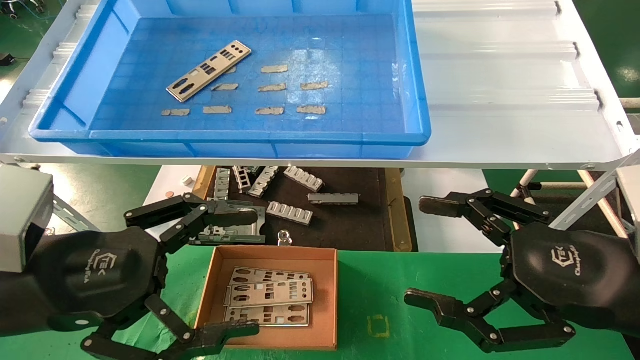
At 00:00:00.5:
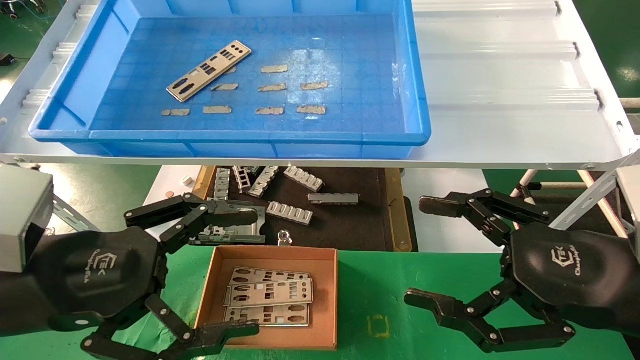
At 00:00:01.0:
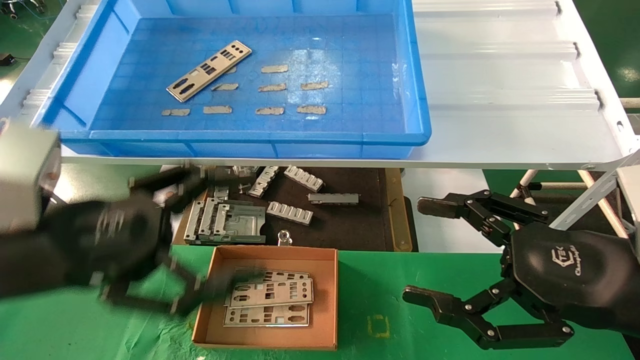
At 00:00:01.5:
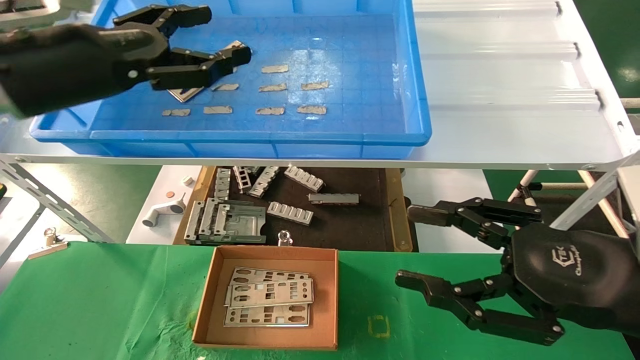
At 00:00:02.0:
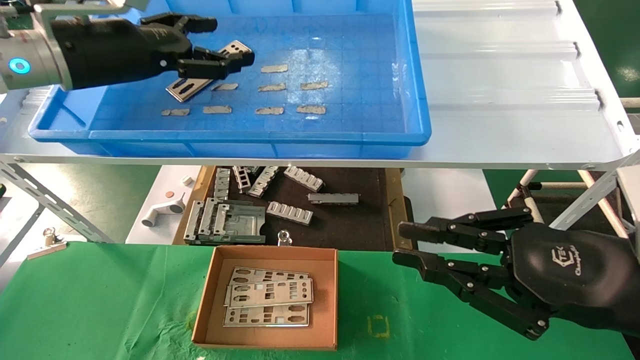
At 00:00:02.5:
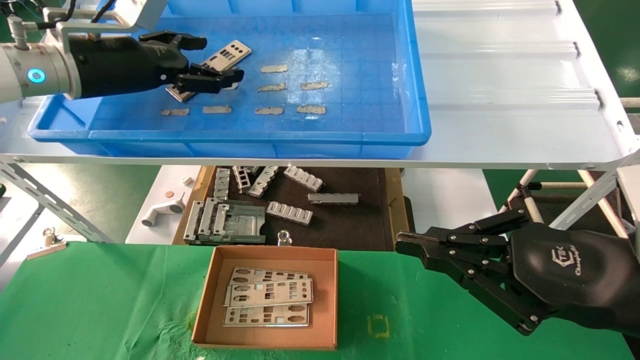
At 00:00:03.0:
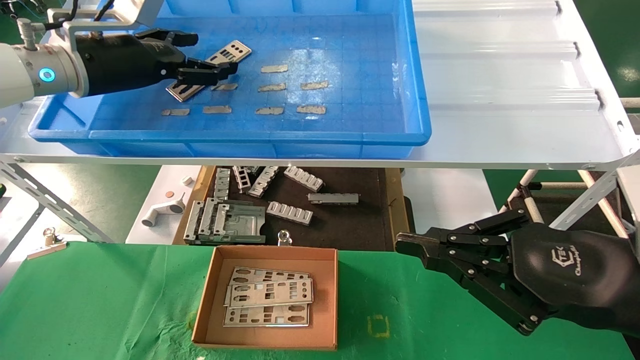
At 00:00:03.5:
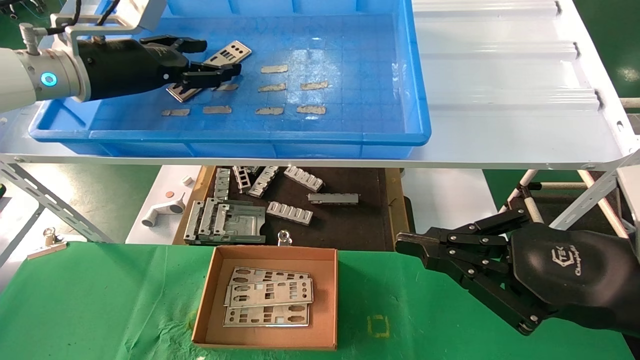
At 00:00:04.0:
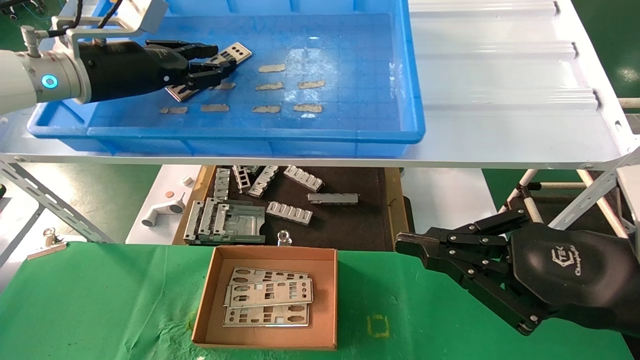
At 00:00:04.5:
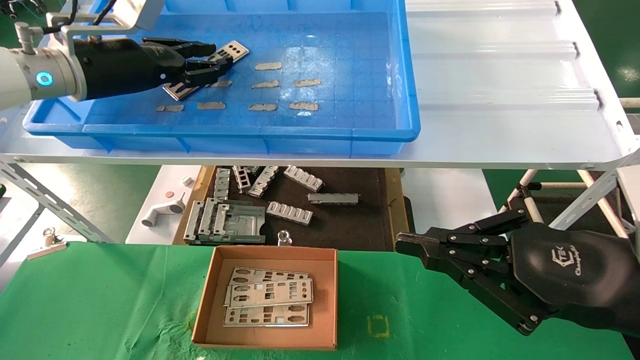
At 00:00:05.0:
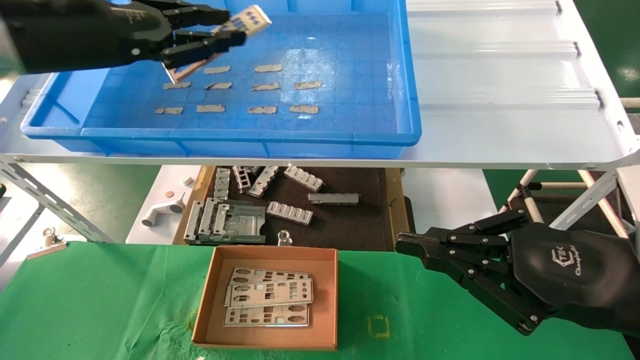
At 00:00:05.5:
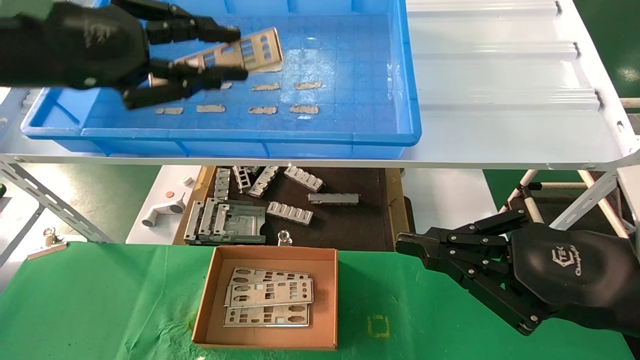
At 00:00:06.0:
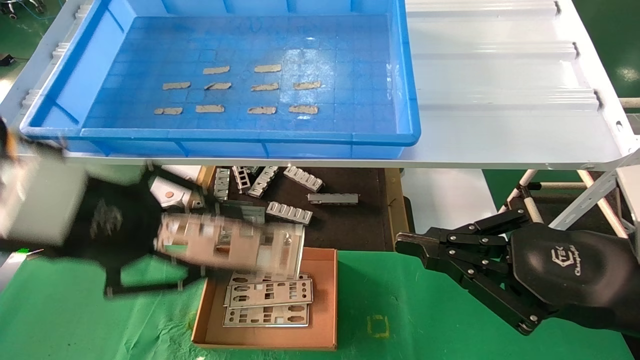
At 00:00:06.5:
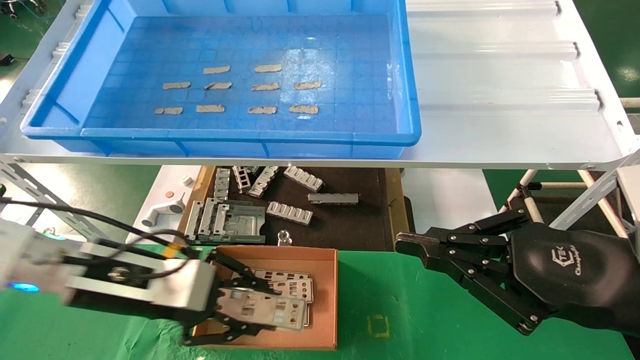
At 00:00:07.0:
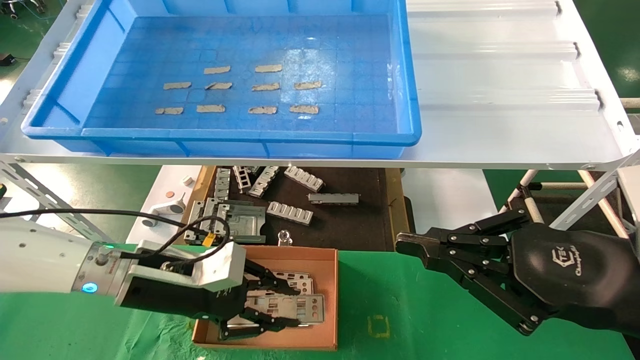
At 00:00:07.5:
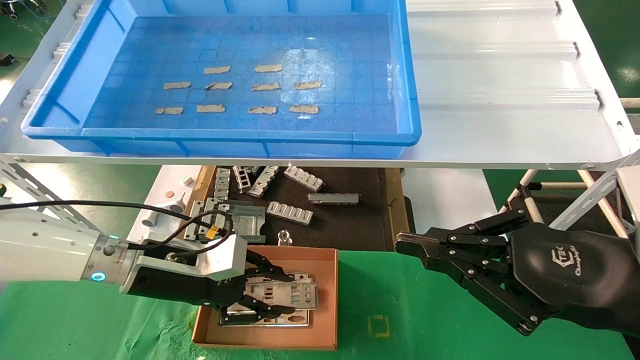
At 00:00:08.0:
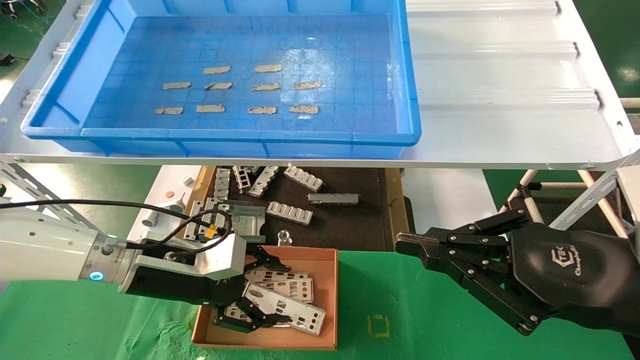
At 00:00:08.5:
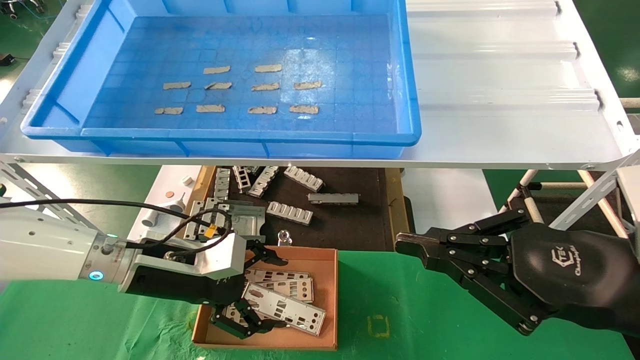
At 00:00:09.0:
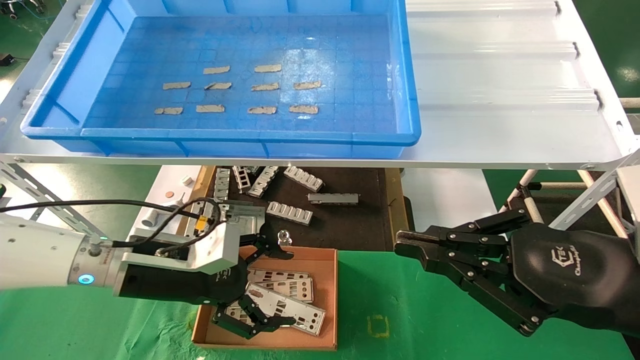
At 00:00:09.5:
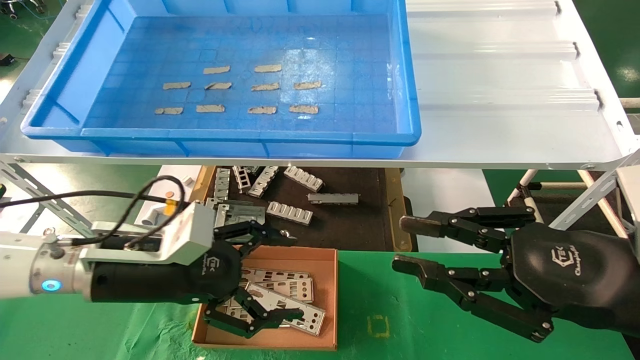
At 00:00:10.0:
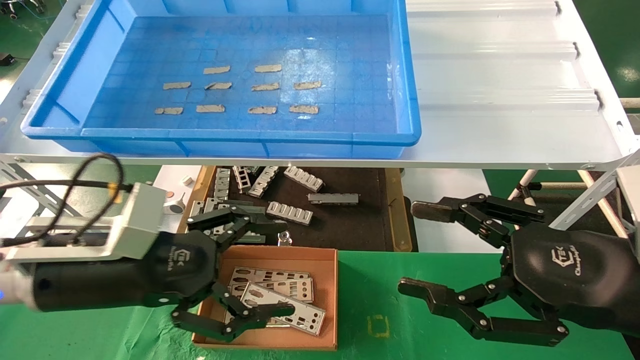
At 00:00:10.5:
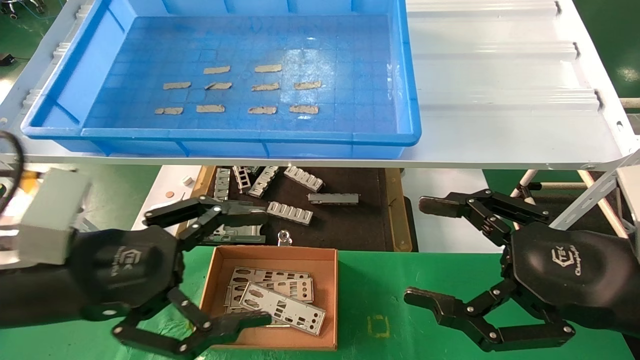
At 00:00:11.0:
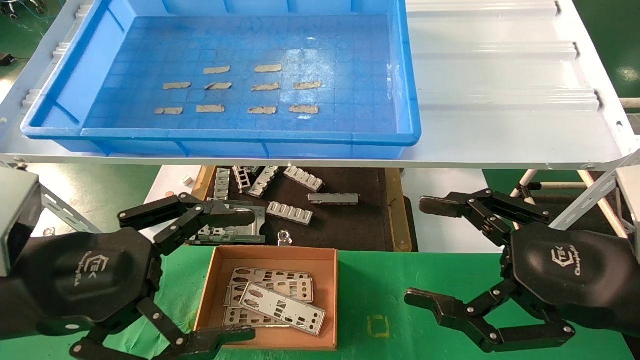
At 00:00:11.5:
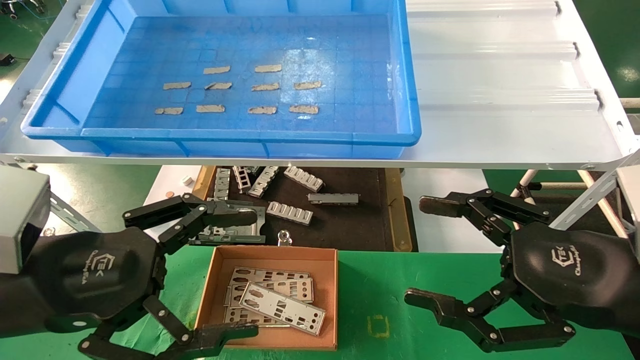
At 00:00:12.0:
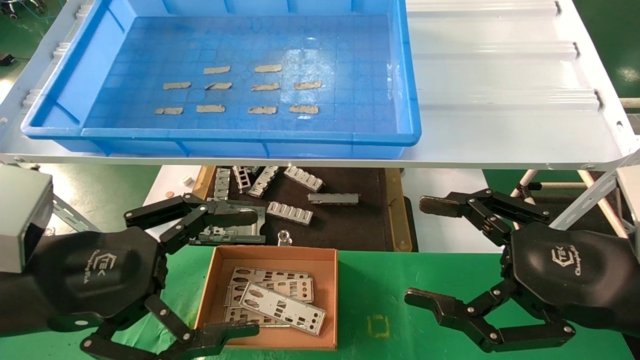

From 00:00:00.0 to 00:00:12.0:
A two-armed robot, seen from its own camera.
Task of the whole recording: pick up the parts on the tray and put them in the cardboard box.
Step, from 00:00:01.5 to 00:00:04.0: Pick up the IO bracket from the container box.
Step, from 00:00:04.5 to 00:00:07.5: Place the IO bracket into the ingredient slot.
From 00:00:00.0 to 00:00:02.0: The right gripper closes up. Meanwhile the left gripper travels forward and upward by approximately 25 cm.
From 00:00:02.0 to 00:00:04.0: The left gripper closes up.
From 00:00:04.0 to 00:00:06.0: The left gripper travels backward by about 20 cm.
From 00:00:06.0 to 00:00:08.0: The left gripper shifts roughly 20 cm downward and forward, and opens.
From 00:00:08.0 to 00:00:10.0: The right gripper opens its fingers, while the left gripper is displaced backward and upward by approximately 10 cm, and opens up.
From 00:00:10.0 to 00:00:12.0: The right gripper opens up; the left gripper moves backward, some 5 cm.

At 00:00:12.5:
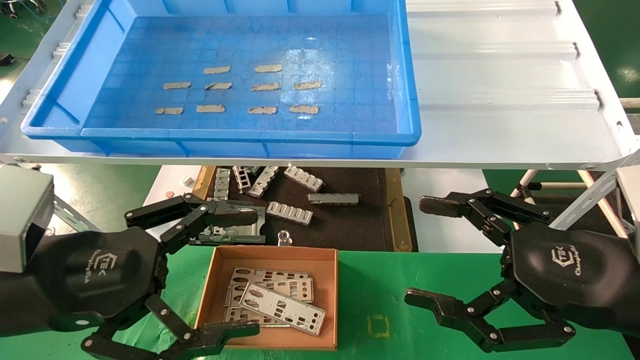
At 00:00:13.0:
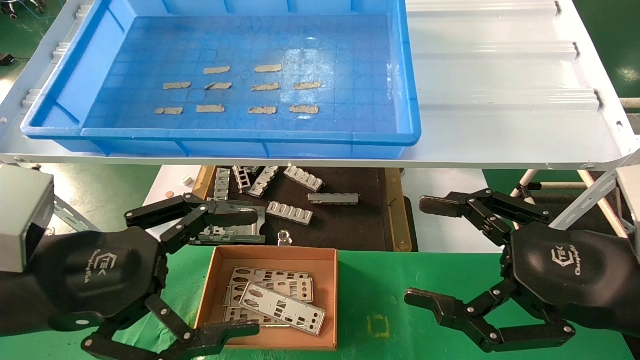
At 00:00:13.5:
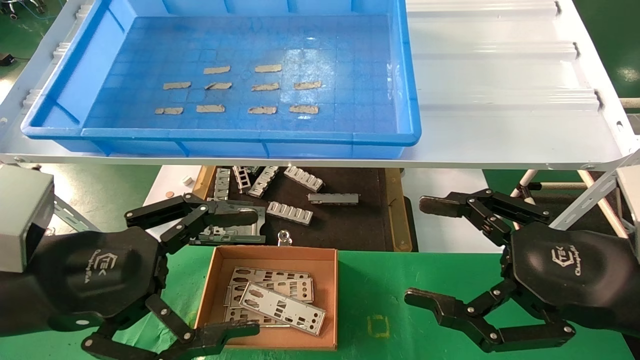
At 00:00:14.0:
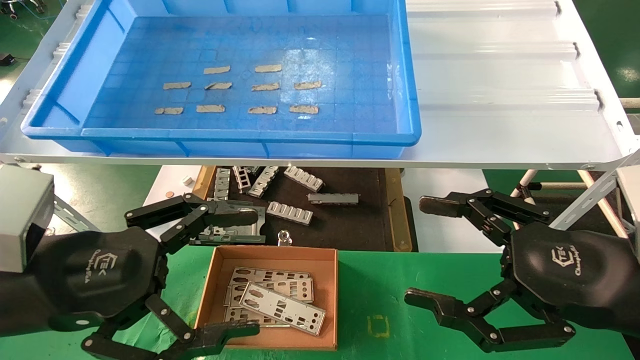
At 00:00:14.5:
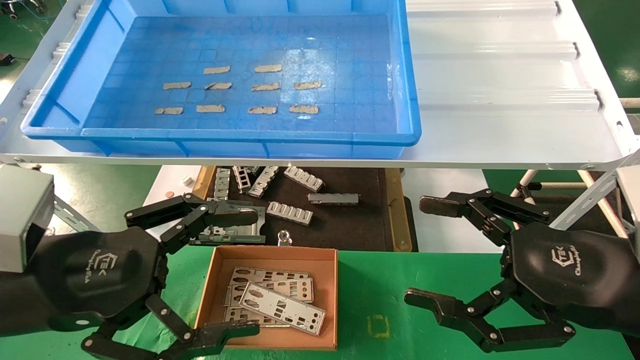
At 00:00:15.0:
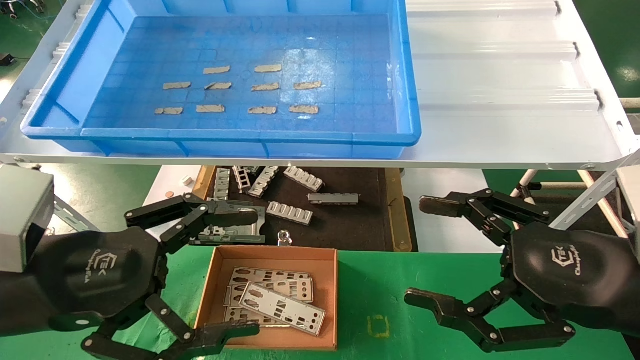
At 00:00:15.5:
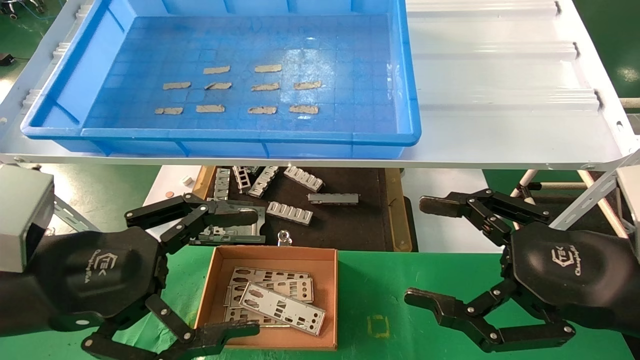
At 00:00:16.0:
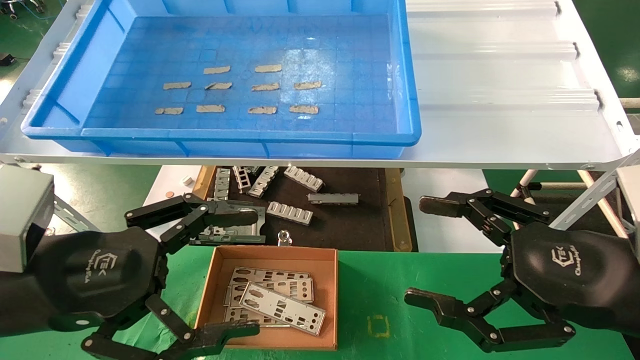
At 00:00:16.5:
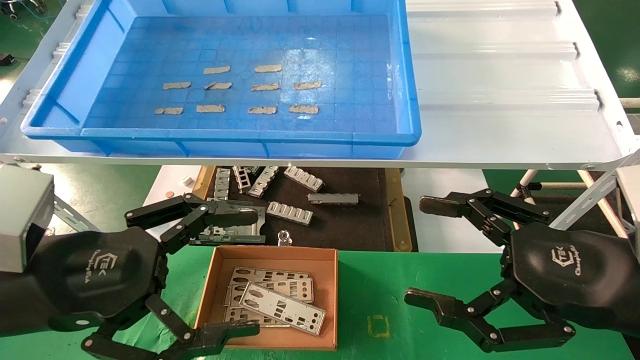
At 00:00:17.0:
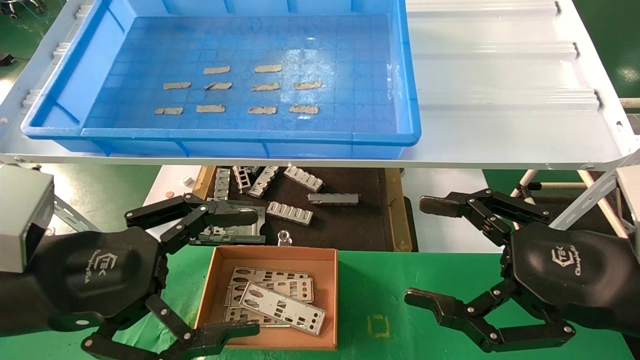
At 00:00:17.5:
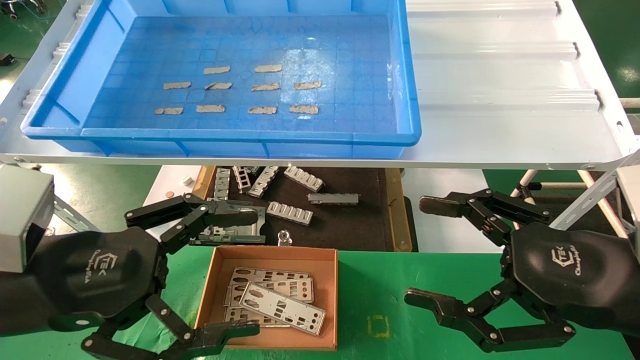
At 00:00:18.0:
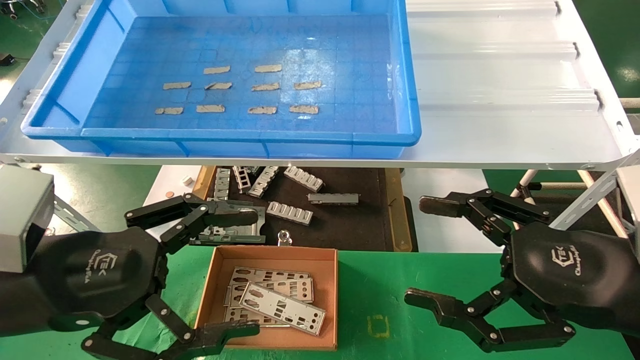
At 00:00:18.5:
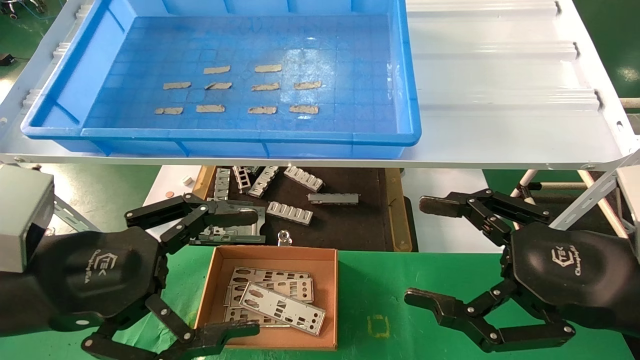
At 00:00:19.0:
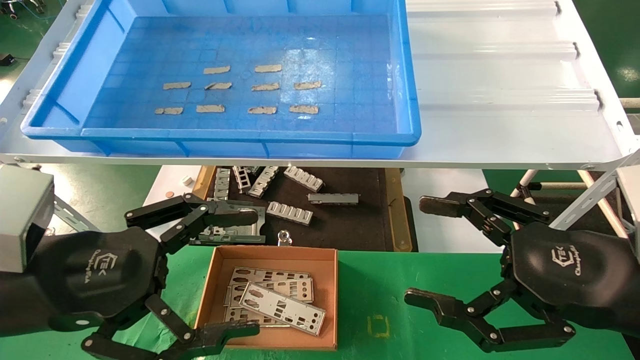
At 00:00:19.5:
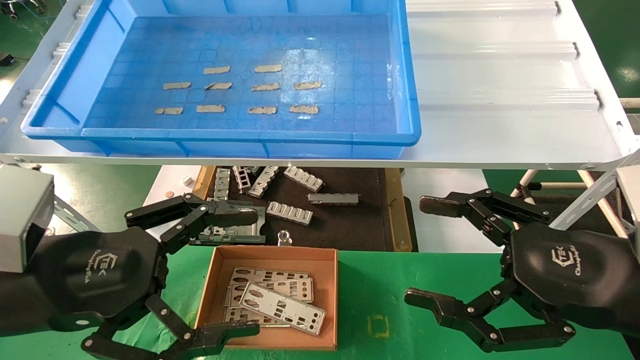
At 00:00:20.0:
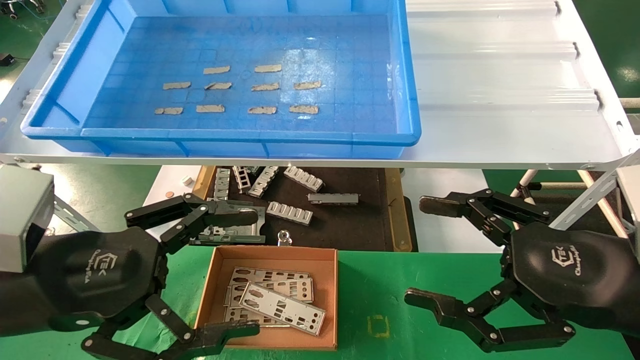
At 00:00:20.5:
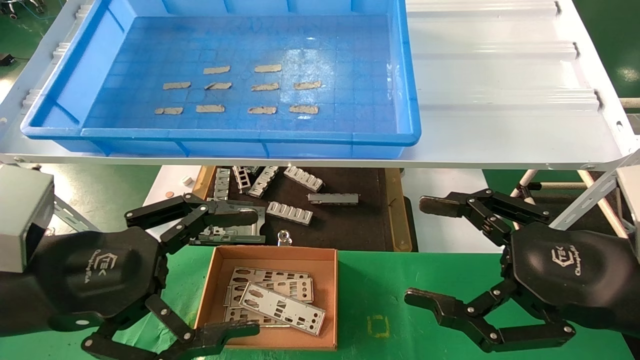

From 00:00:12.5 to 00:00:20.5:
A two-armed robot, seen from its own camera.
Task of the whole recording: pick up the parts on the tray and put them in the cardboard box.
From 00:00:12.5 to 00:00:20.5: Both grippers stay about where they are.
